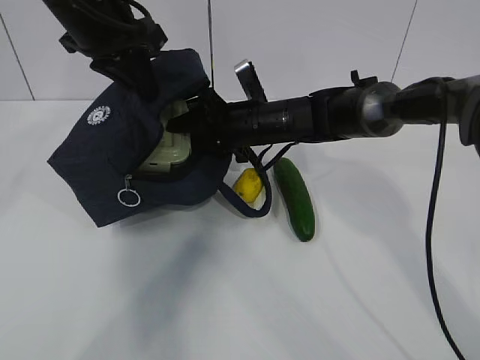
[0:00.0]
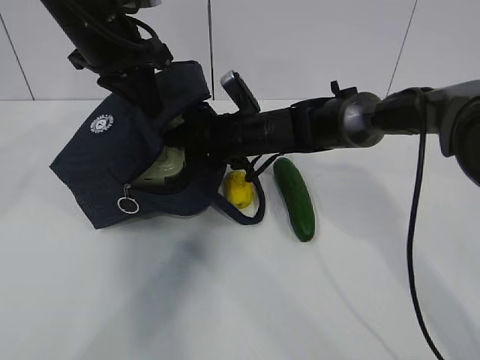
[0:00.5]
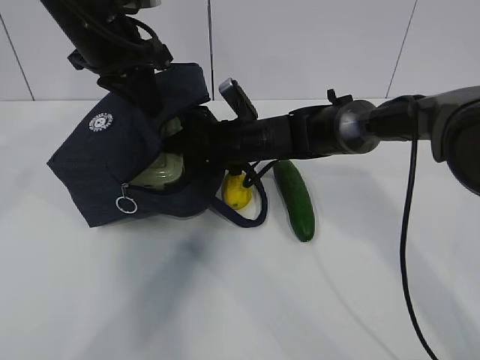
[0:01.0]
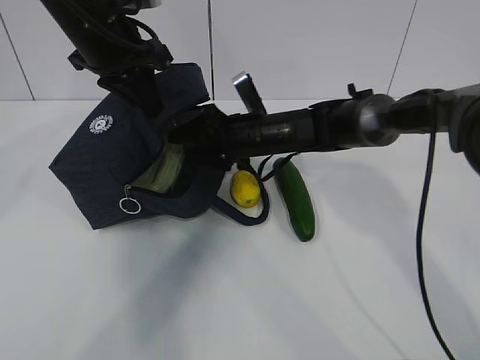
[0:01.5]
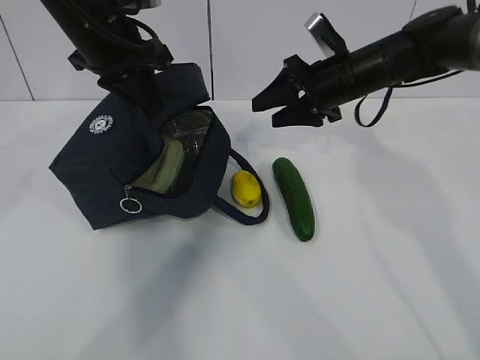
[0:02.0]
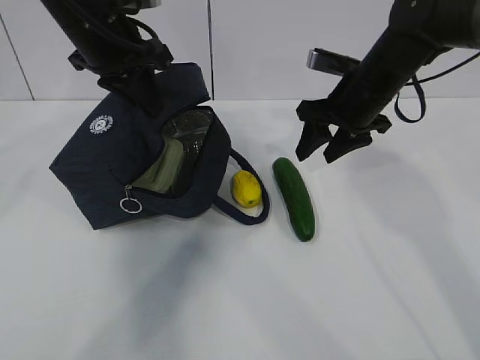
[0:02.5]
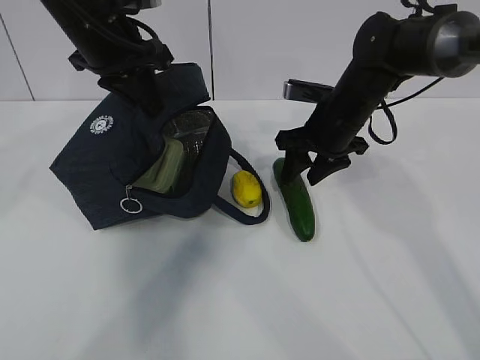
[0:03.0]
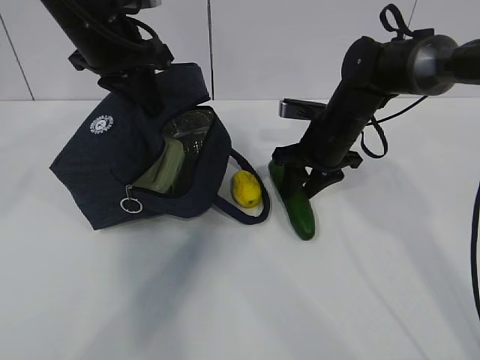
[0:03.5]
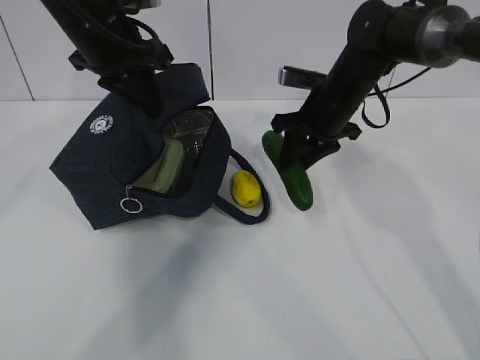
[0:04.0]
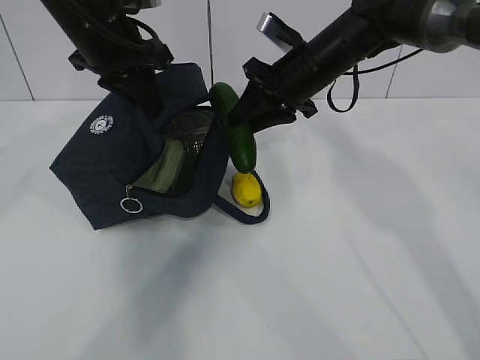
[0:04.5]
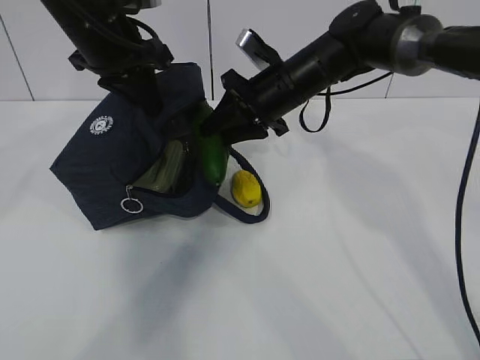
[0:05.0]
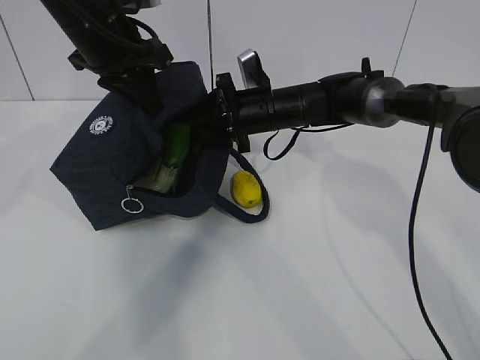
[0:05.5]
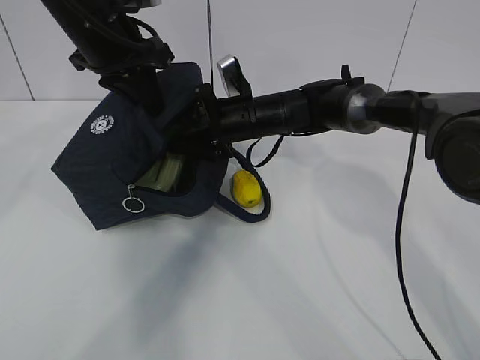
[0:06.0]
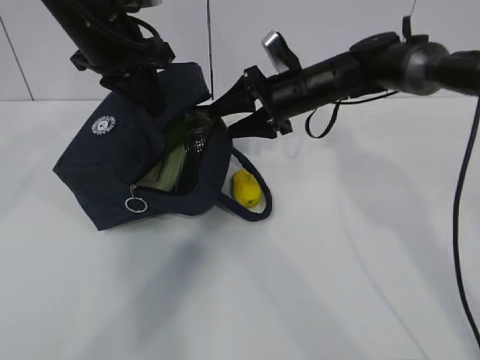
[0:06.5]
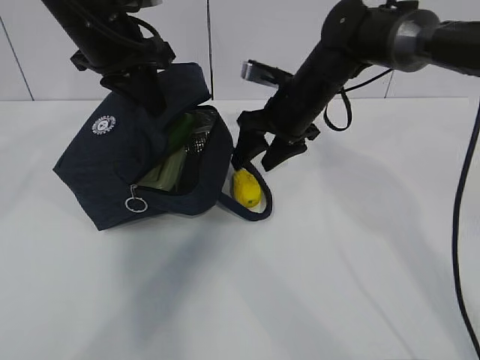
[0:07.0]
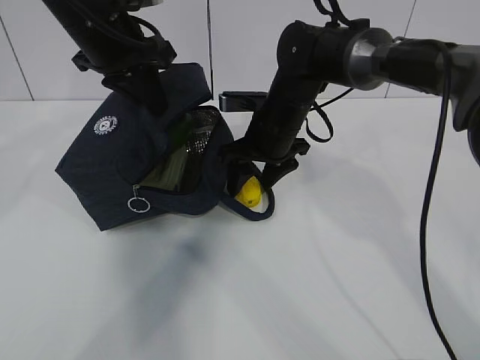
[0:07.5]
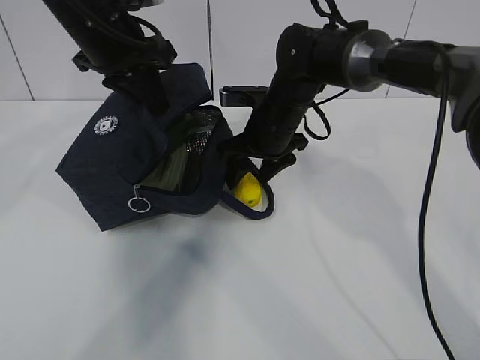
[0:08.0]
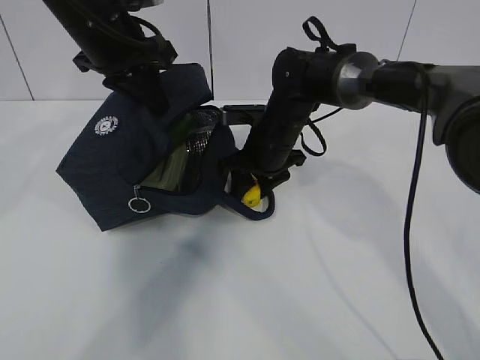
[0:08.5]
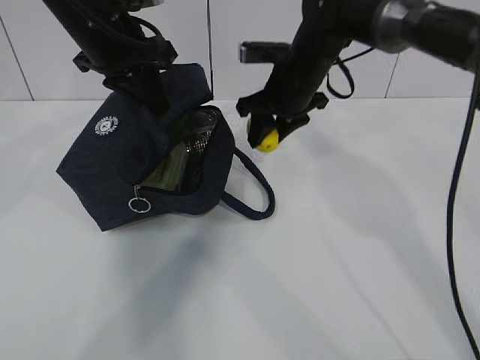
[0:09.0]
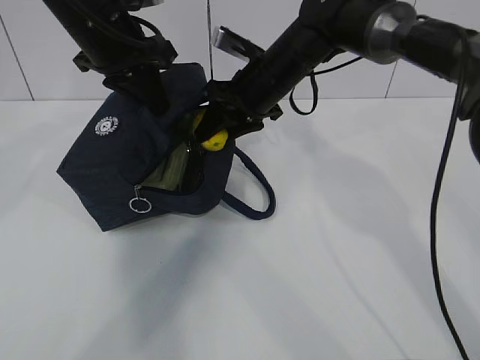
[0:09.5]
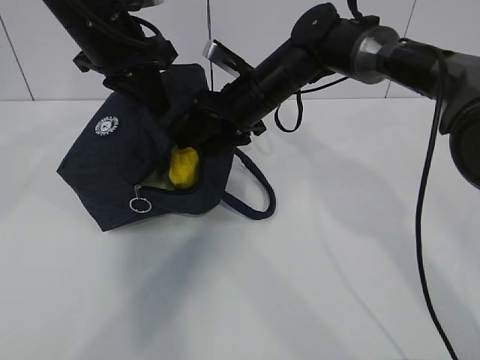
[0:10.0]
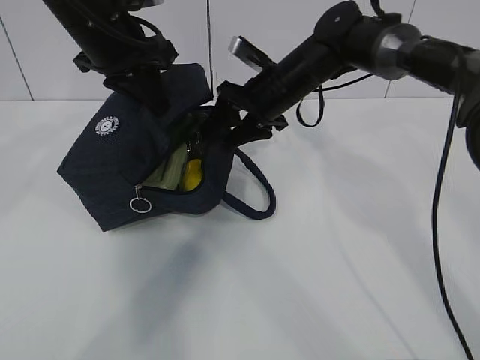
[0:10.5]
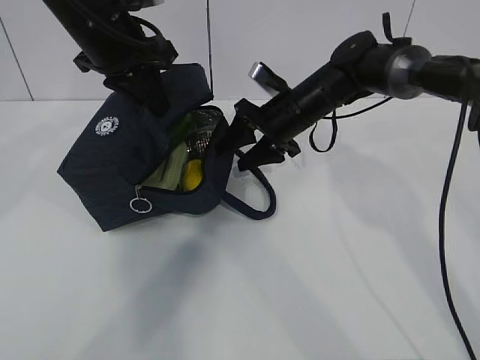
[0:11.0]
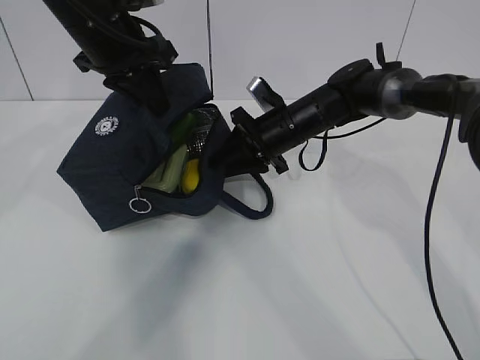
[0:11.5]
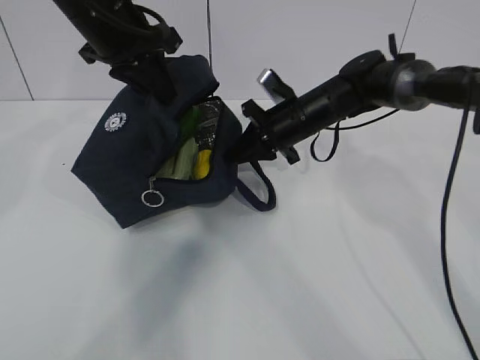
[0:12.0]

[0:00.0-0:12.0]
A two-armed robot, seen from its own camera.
Step, 0:00.0 to 0:01.5: Place it into the bag with your right hand.
Step, 0:02.0 to 0:03.5: Grab the lemon with your right hand.
Step, 0:05.5 to 0:06.0: Grab the lunch bag with your right hand.
Step, 0:06.5 to 0:07.5: Move the lunch bag to the right.
0:00.0 to 0:02.0: The right gripper is displaced to the right and upward by approximately 15 cm.
0:04.0 to 0:06.0: The right gripper is displaced to the left by about 10 cm, and opens.
0:10.0 to 0:12.0: The right gripper travels to the right by some 5 cm, and closes up.

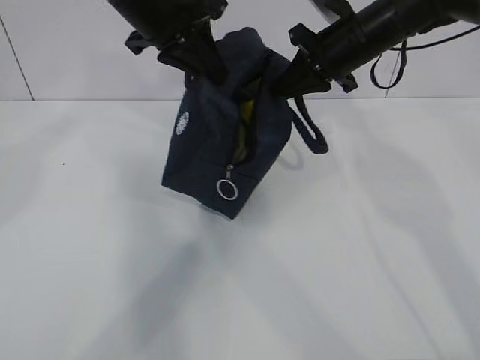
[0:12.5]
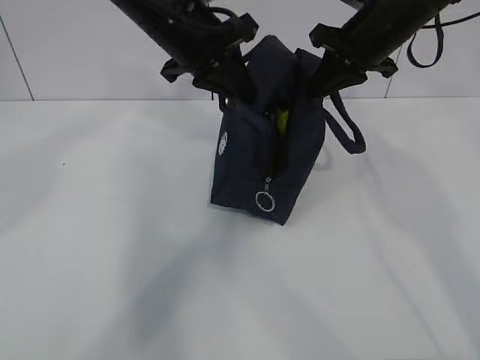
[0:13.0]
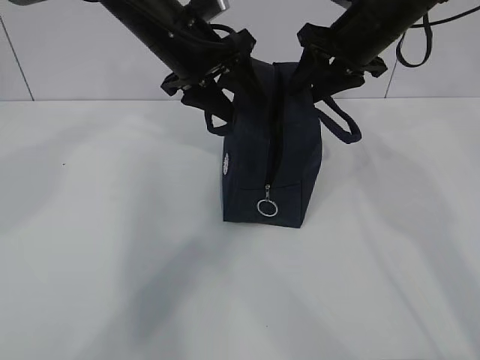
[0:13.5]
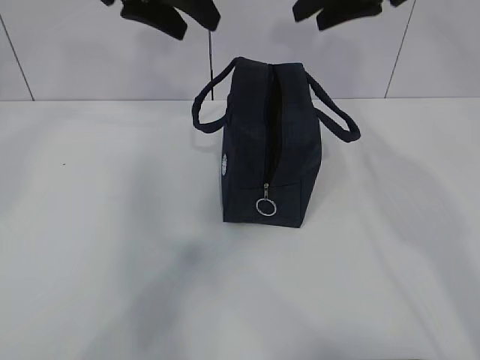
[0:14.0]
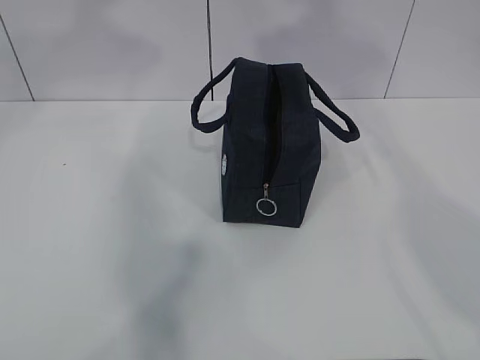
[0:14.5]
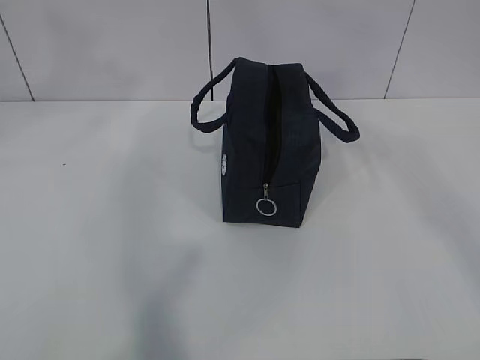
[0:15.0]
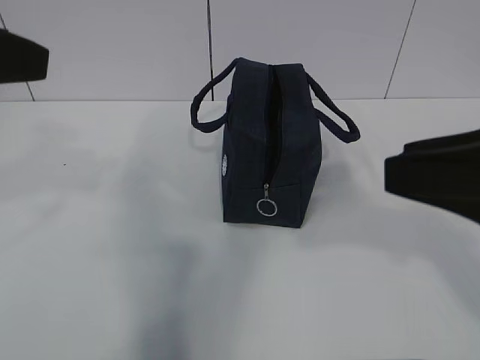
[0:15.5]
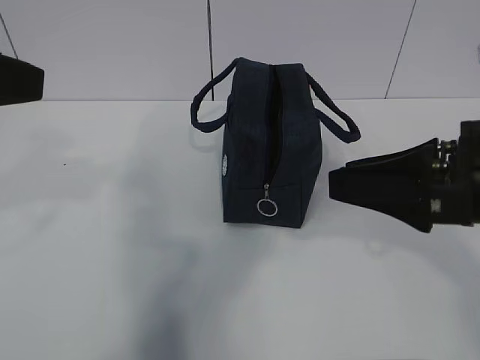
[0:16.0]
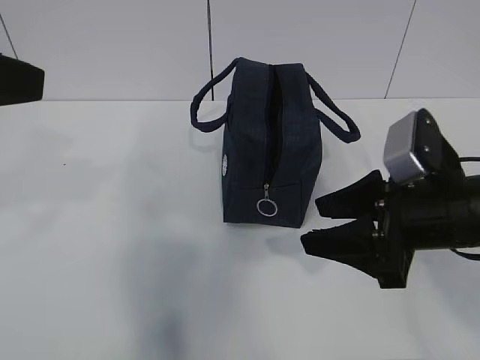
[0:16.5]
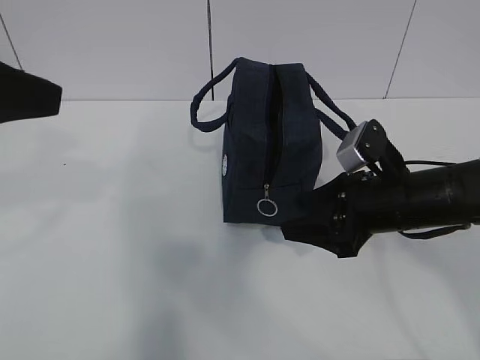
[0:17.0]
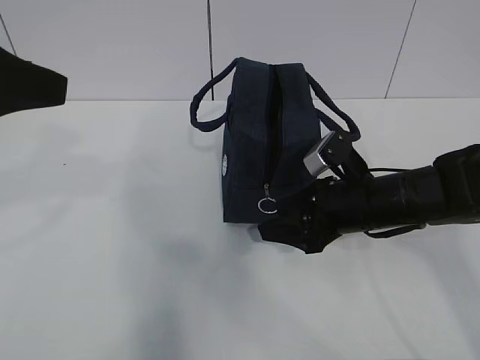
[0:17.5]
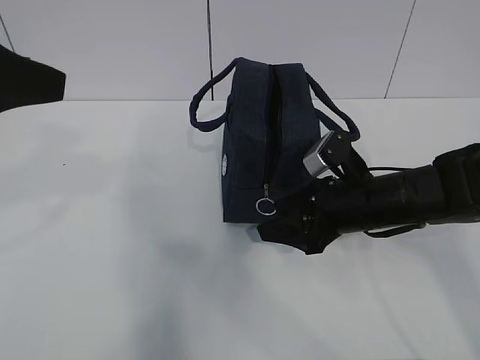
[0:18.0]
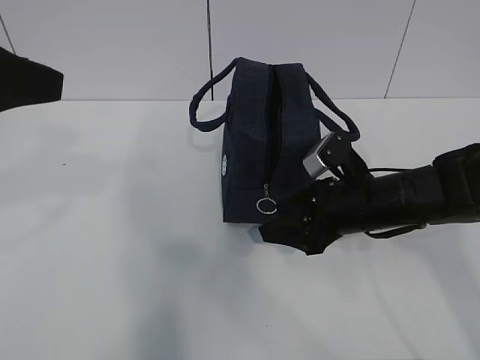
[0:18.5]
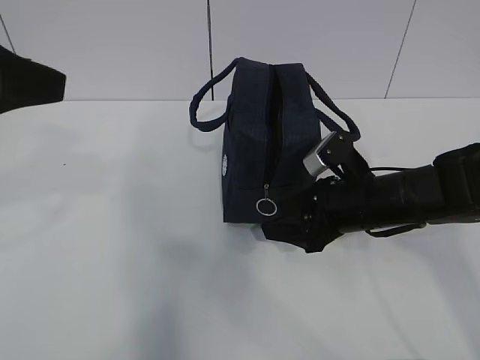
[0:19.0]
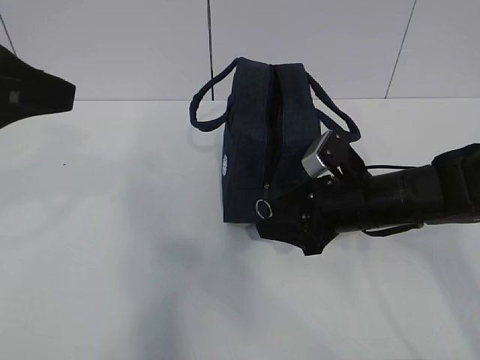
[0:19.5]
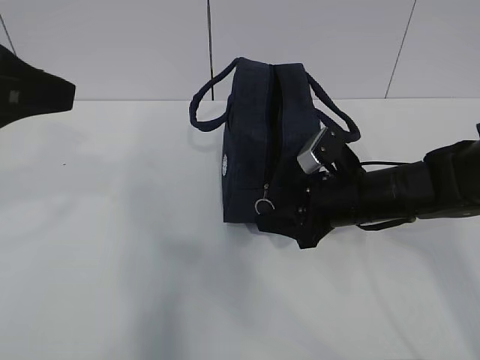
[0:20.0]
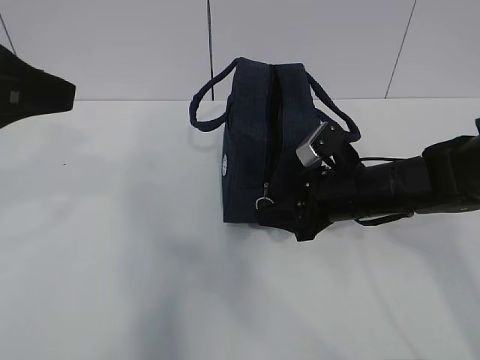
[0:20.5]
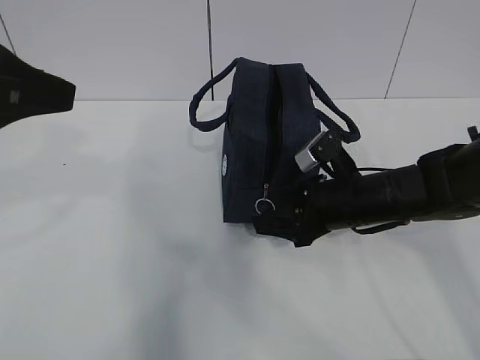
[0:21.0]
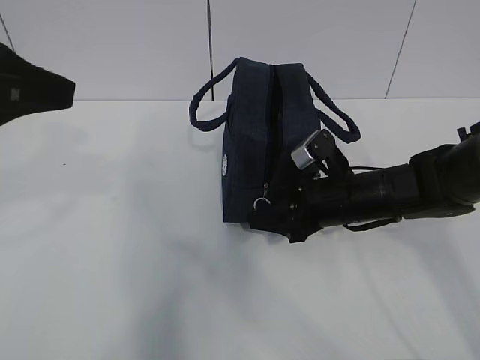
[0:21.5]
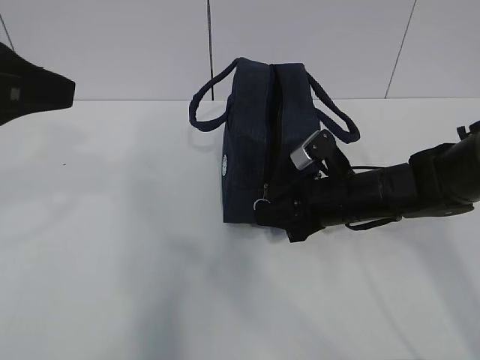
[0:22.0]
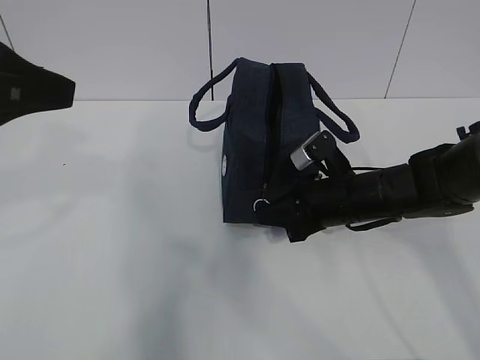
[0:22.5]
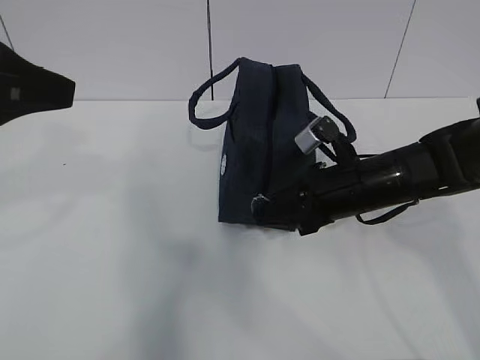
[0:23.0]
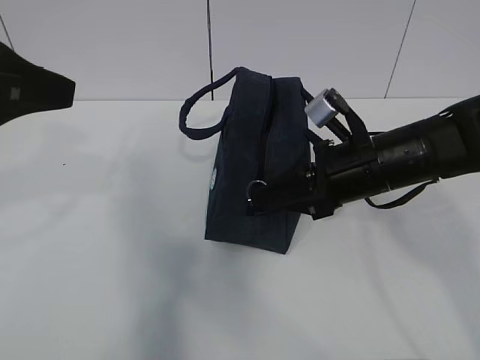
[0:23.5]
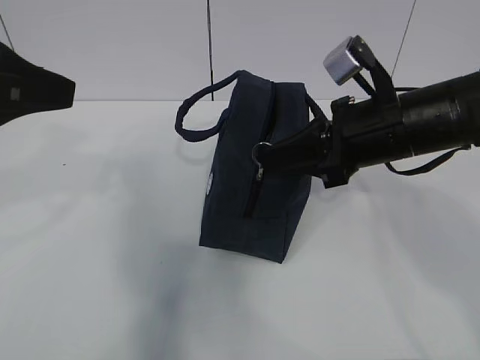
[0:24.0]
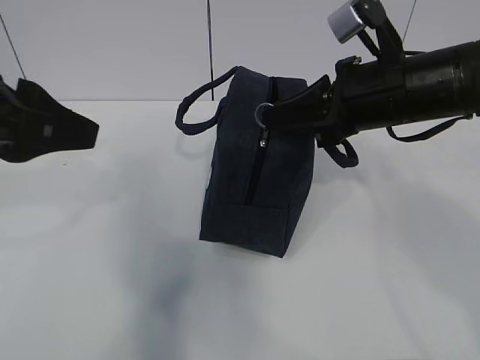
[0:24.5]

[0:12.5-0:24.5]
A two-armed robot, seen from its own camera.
Step, 0:12.5 to 0:21.0: Grab the lunch bag with your left hand.
Step, 0:21.5 to 0:24.0: Pull the zipper with your right hand.
0:12.5 to 0:14.5: The right gripper travels upward and backward by about 35 cm, and opens; the left gripper moves upward, backward and to the left, some 20 cm, and opens up.
0:14.5 to 0:16.5: The left gripper heads backward and downward, covering some 20 cm; the right gripper is displaced downward by about 35 cm.
0:16.5 to 0:18.5: The right gripper shifts roughly 10 cm forward and downward.
0:18.5 to 0:20.5: The grippers move only a little.
0:20.5 to 0:22.5: The right gripper closes.
0:22.5 to 0:24.5: The right gripper goes about 15 cm upward.

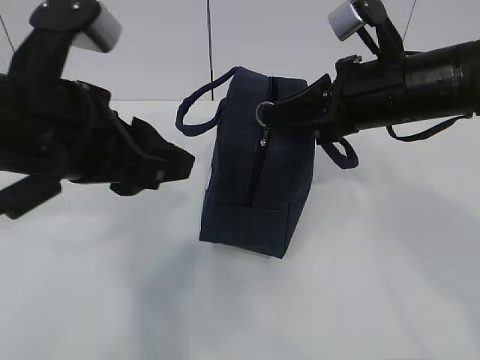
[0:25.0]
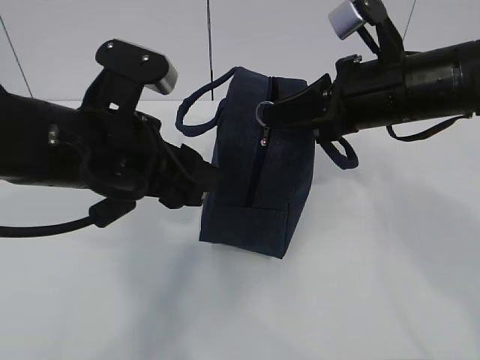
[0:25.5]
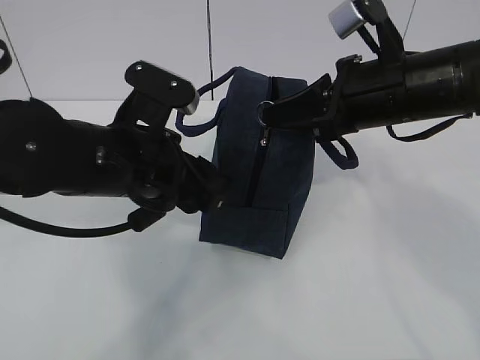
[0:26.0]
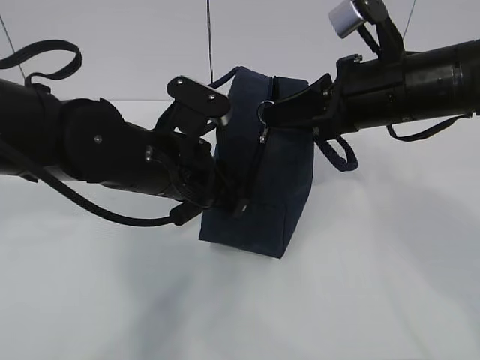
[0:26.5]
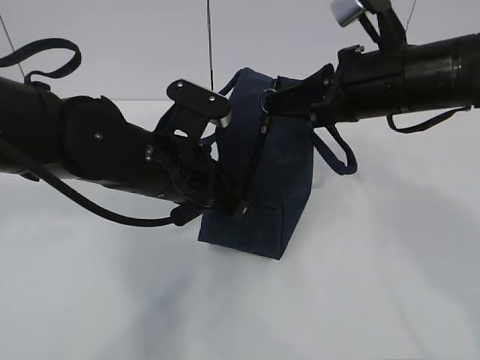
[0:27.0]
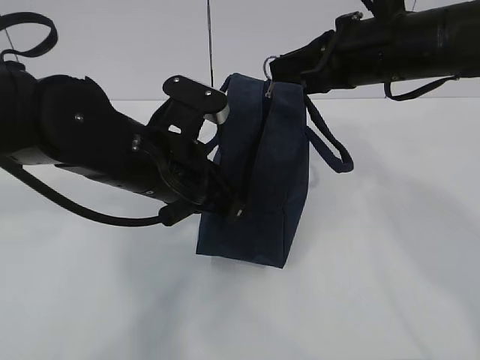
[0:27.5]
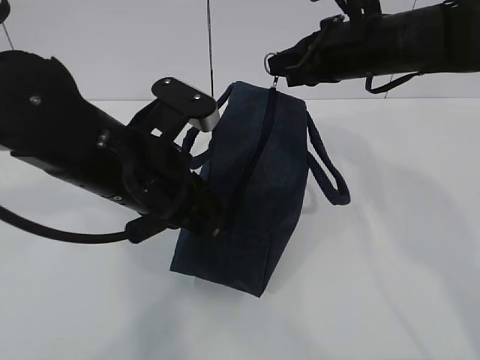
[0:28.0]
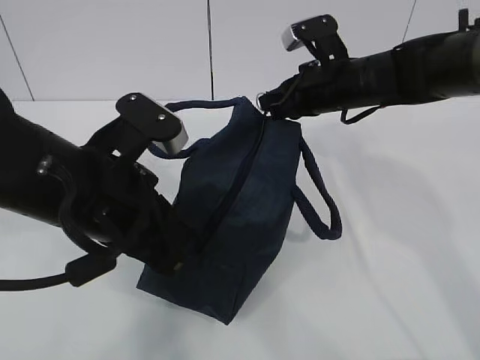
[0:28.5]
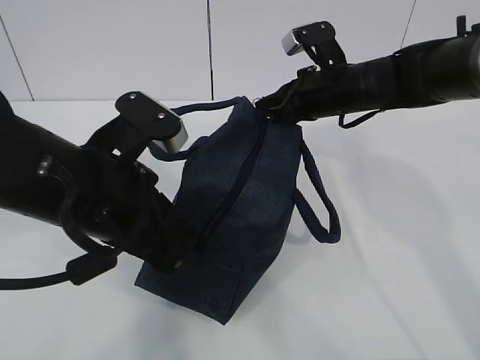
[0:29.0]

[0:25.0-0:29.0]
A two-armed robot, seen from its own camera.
0:25.0 to 0:27.0: The left gripper travels downward, forward and to the right by about 15 cm, and closes its fingers.
0:27.0 to 0:29.0: The right gripper shifts some 15 cm forward and downward. Meanwhile the left gripper heads backward, covering some 5 cm.
